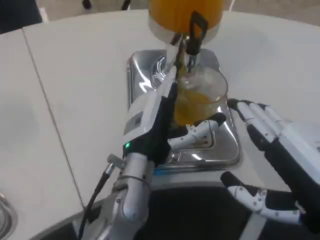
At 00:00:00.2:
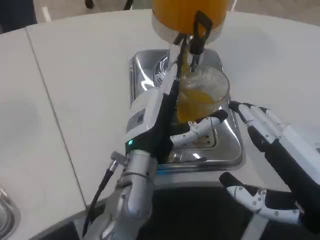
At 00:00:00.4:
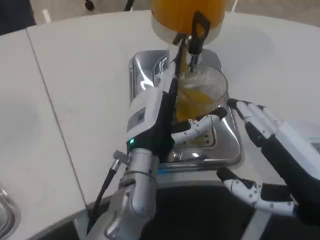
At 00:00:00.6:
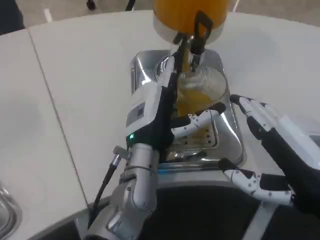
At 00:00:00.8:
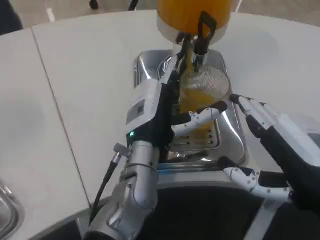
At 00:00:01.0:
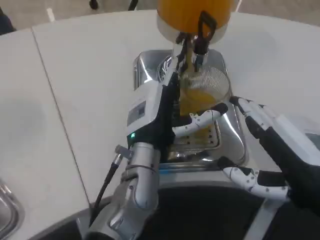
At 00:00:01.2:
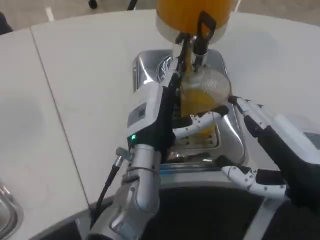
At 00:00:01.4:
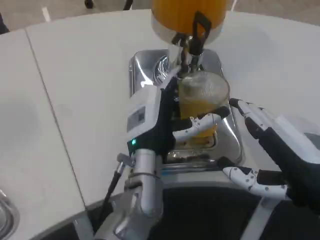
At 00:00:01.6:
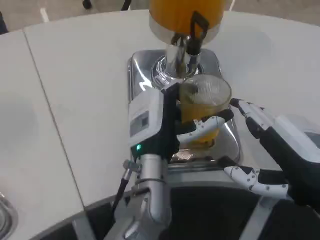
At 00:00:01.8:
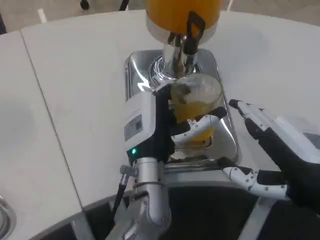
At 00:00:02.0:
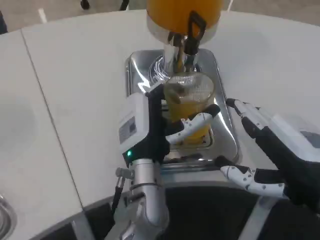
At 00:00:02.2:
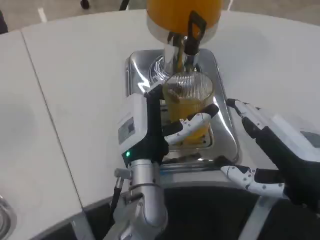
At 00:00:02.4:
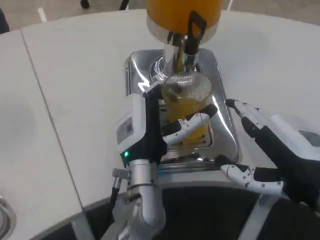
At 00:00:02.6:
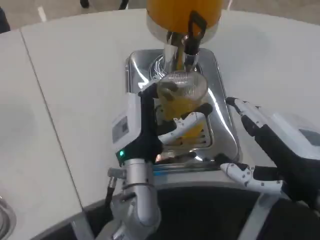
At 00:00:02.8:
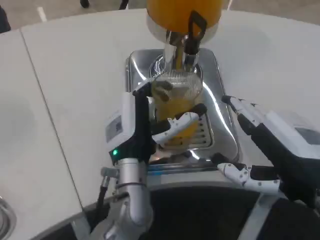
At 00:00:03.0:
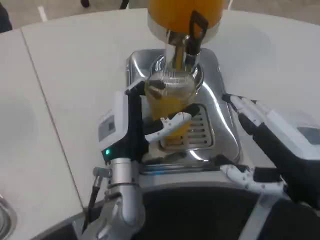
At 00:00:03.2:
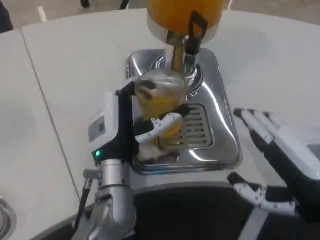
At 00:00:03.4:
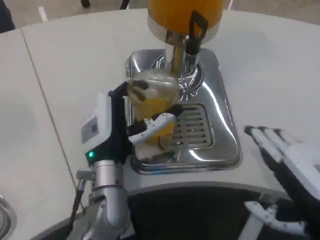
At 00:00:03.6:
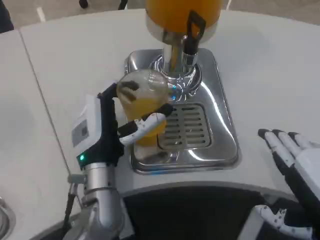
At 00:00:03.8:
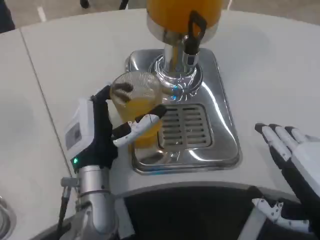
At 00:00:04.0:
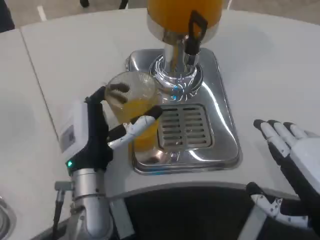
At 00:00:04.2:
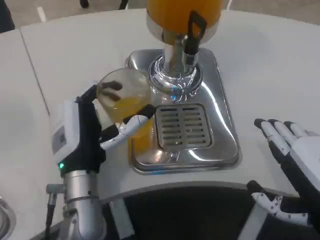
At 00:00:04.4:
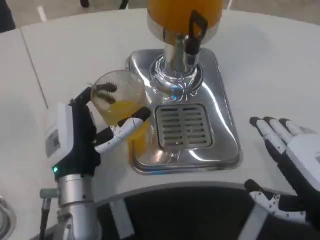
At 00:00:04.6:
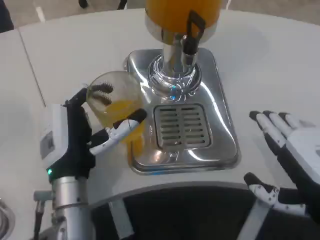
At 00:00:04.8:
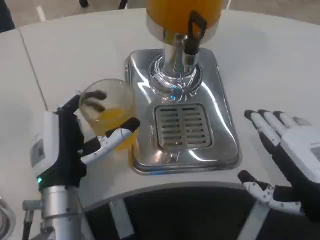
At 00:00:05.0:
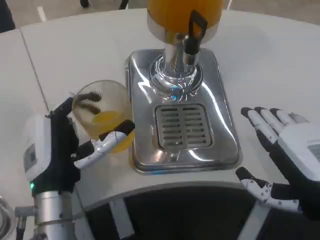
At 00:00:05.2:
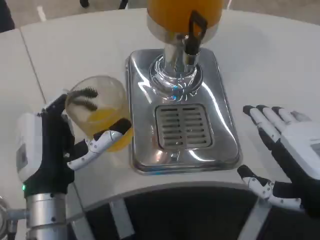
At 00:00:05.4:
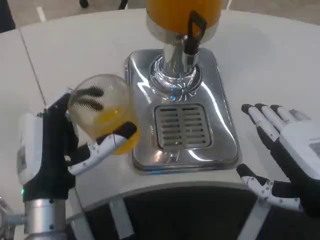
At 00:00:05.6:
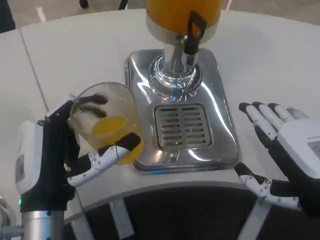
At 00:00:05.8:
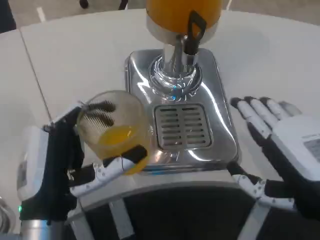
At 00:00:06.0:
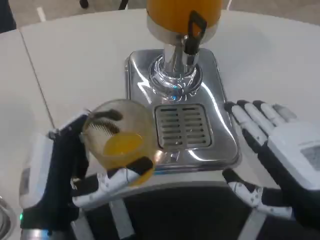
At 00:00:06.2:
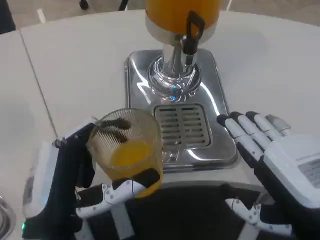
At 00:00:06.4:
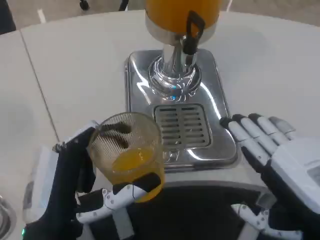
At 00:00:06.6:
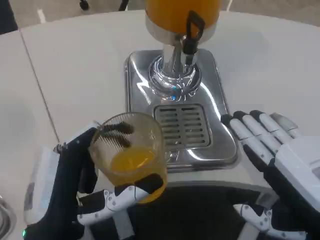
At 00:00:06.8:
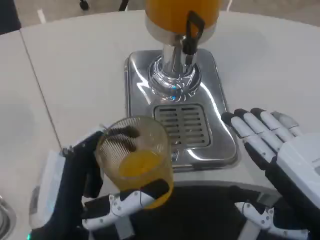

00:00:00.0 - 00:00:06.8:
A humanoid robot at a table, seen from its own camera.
Task of the whole recording: Grasp the cup under the faucet to collect the drink, then remove the cup.
00:00:00.0 - 00:00:01.4: The hands move only a little.
00:00:02.8 - 00:00:04.0: The left hand shifts some 5 cm to the left.
00:00:04.0 - 00:00:05.4: The left hand is displaced backward by roughly 5 cm.
00:00:05.4 - 00:00:06.8: The left hand travels backward by some 5 cm.

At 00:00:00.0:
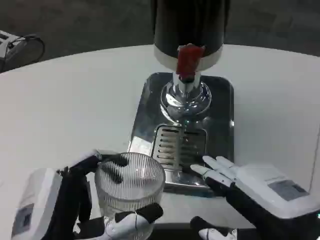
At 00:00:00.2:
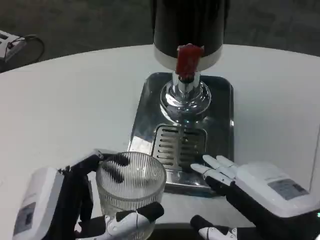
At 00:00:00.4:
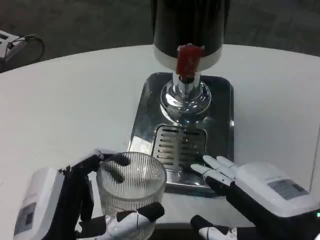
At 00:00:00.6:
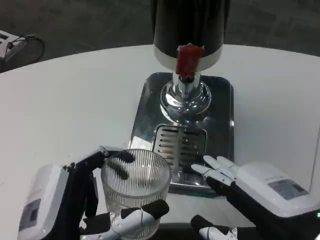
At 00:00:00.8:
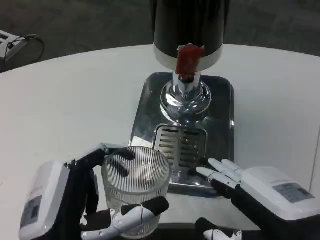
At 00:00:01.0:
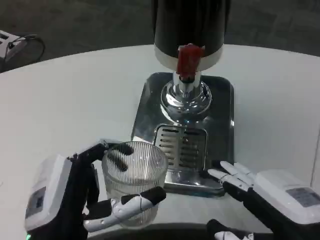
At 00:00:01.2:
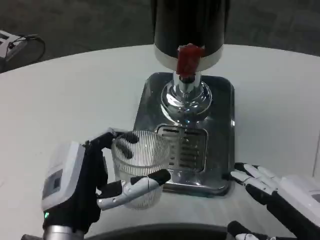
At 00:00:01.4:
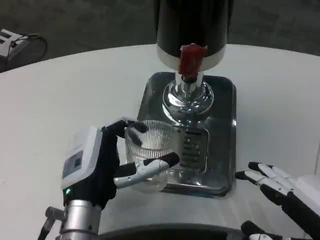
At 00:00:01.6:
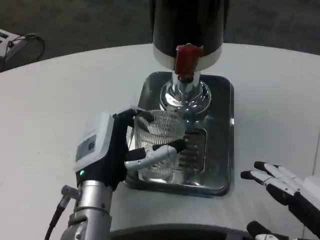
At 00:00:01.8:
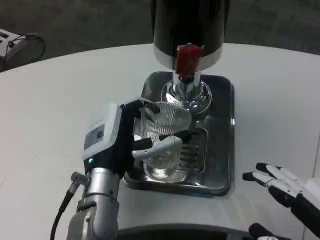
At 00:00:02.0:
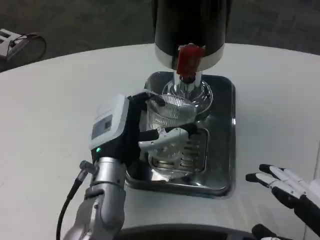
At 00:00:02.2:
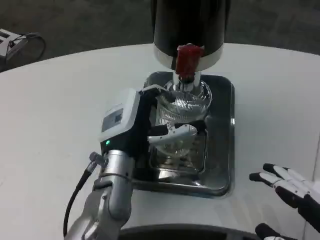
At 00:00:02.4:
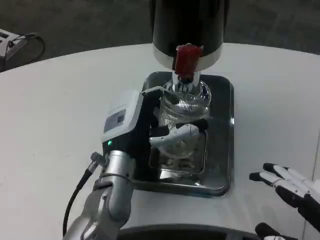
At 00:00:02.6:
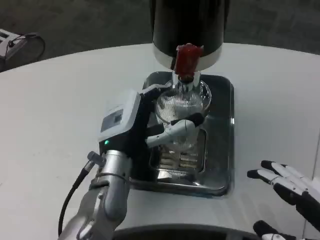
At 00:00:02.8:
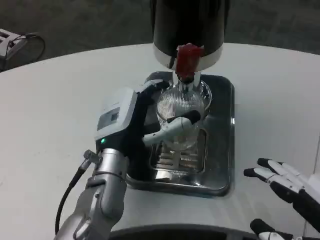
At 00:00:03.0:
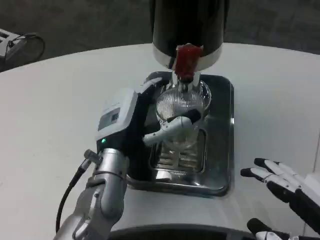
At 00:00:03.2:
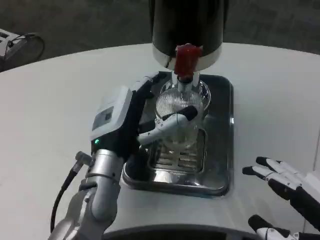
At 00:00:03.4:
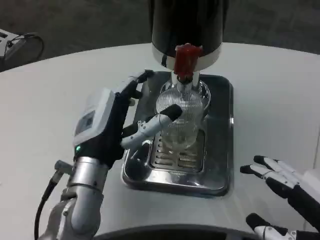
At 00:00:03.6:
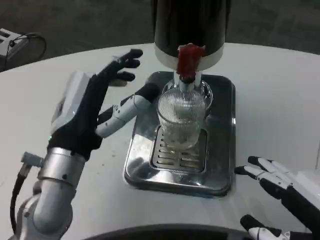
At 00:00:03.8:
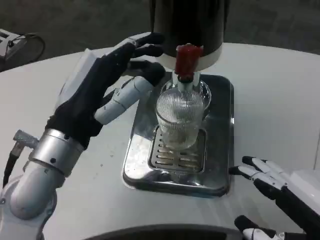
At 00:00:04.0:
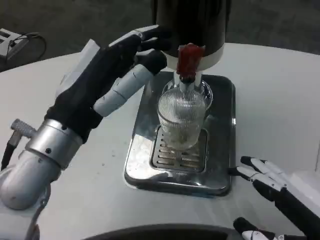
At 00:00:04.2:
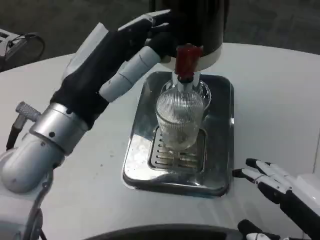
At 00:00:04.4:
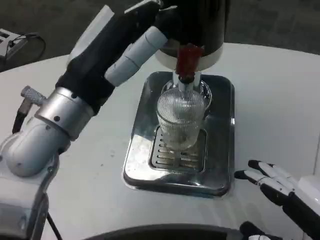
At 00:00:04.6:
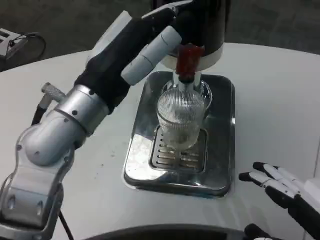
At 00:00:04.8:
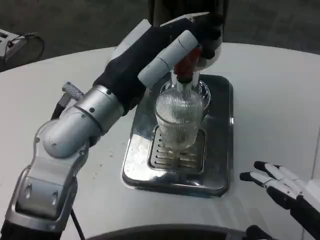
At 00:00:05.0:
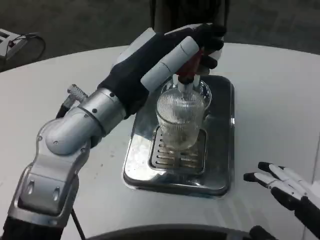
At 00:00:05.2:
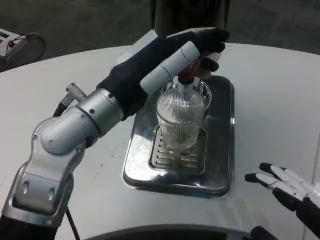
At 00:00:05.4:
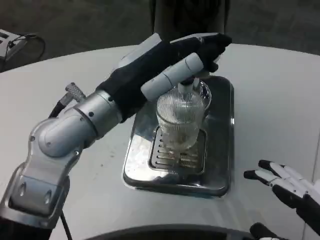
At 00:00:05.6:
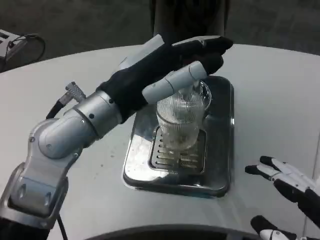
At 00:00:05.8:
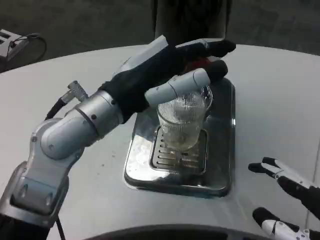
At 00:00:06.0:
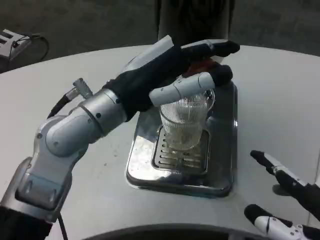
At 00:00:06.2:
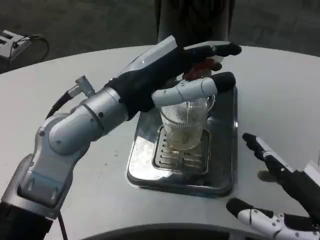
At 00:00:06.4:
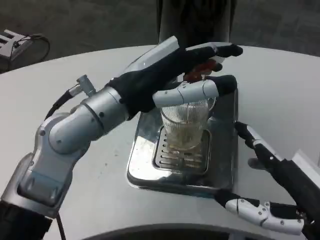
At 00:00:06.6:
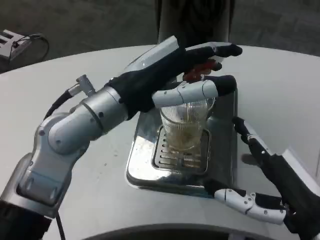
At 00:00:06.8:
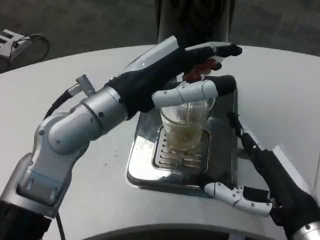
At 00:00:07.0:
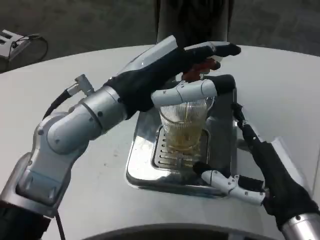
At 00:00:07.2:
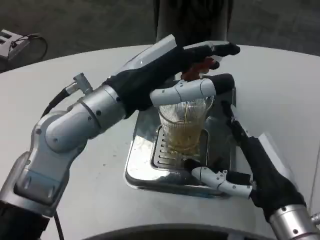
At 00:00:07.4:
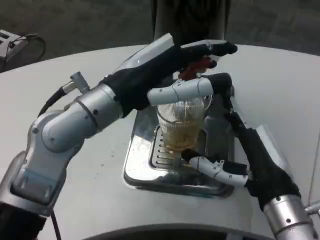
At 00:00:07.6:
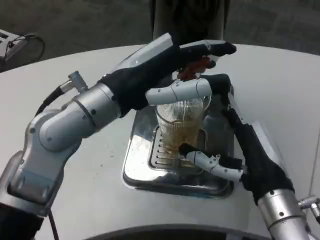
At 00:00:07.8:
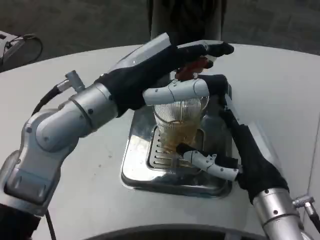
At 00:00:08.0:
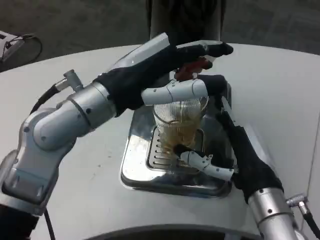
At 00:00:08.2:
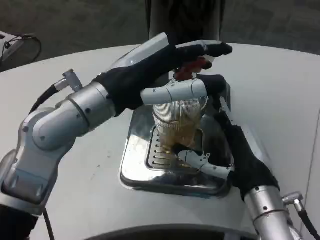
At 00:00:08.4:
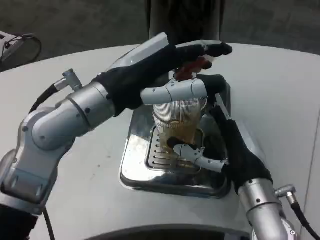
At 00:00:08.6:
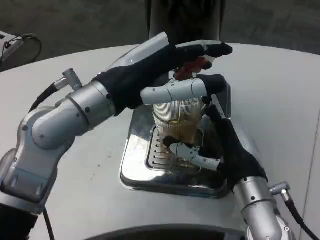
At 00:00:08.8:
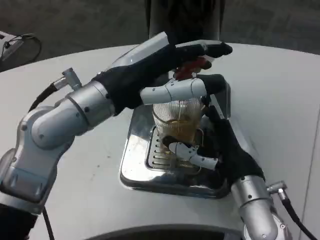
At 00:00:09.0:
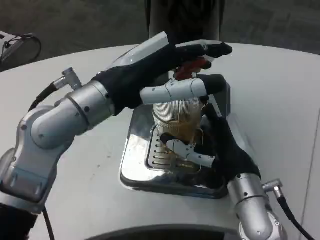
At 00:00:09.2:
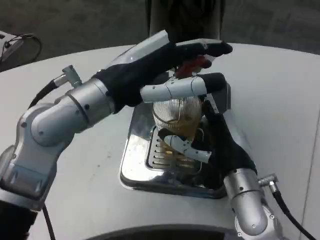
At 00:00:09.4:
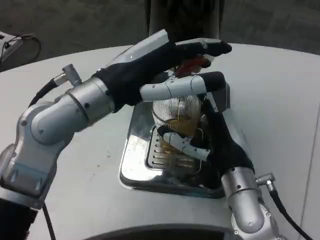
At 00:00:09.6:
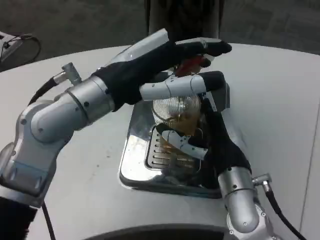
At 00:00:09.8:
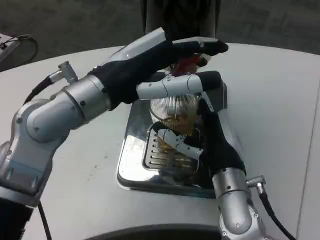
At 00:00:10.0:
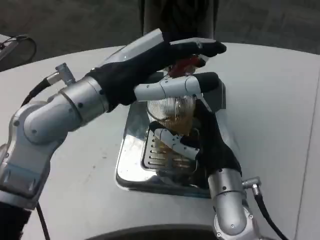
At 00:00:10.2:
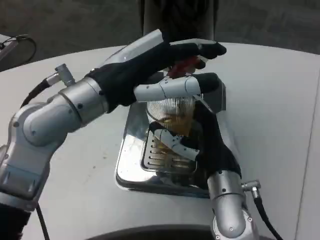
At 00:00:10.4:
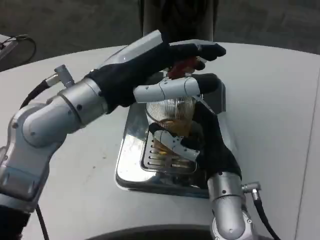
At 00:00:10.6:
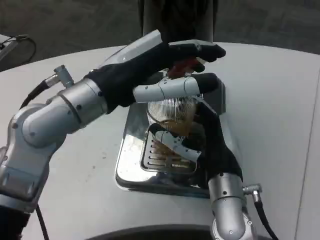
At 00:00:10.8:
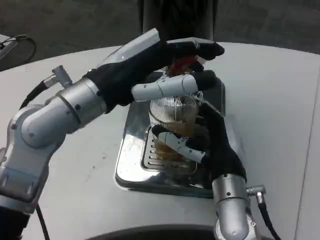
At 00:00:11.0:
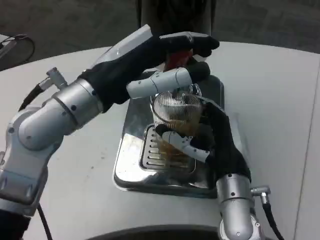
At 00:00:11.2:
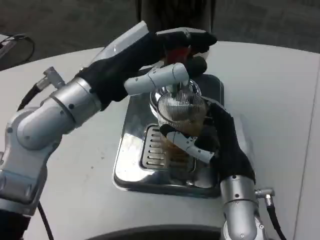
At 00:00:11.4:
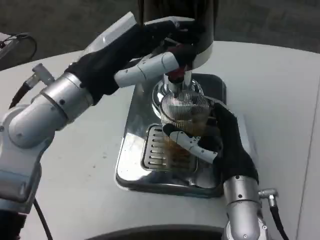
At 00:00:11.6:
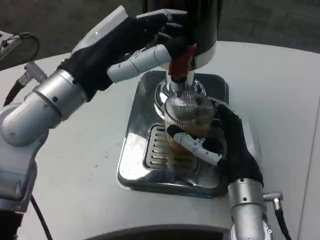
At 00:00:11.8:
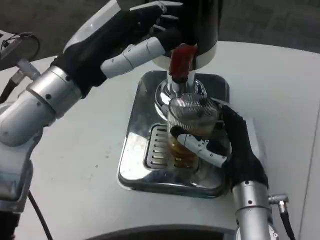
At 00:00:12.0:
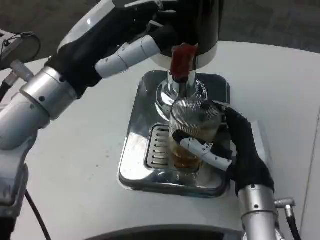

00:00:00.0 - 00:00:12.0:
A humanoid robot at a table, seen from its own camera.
Task of the whole recording: Grasp the cup under the faucet to collect the drink, then remove the cup.
00:00:00.0 - 00:00:01.6: The right hand ends up about 5 cm from where it was; the left hand moves forward, some 15 cm.
00:00:01.6 - 00:00:03.0: The left hand ends up some 5 cm from where it was.
00:00:03.0 - 00:00:04.4: The left hand goes some 15 cm upward and backward.
00:00:06.0 - 00:00:07.6: The right hand is displaced forward and to the left by some 15 cm.
00:00:07.6 - 00:00:09.0: The right hand changes place by some 5 cm.

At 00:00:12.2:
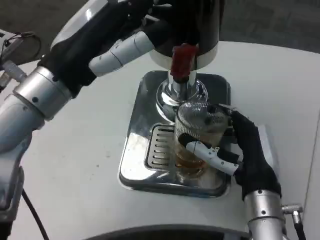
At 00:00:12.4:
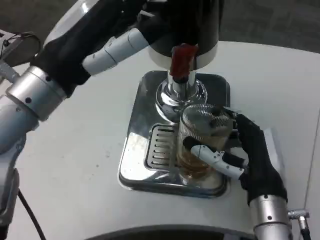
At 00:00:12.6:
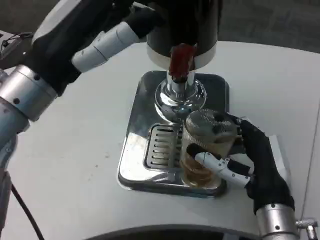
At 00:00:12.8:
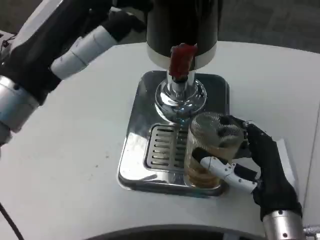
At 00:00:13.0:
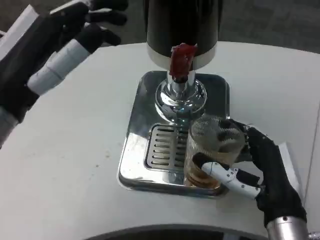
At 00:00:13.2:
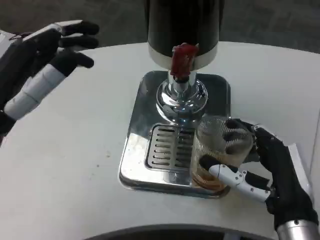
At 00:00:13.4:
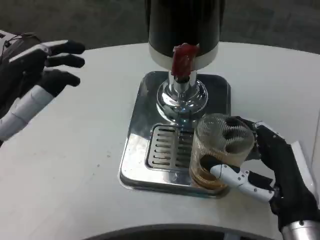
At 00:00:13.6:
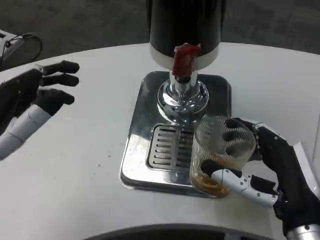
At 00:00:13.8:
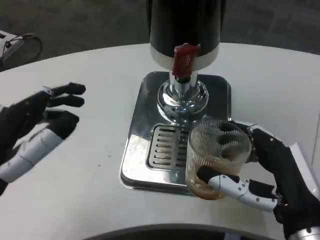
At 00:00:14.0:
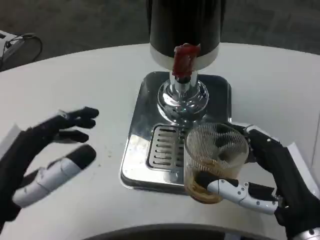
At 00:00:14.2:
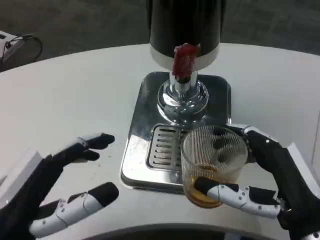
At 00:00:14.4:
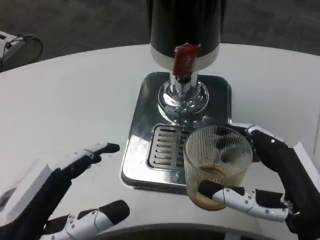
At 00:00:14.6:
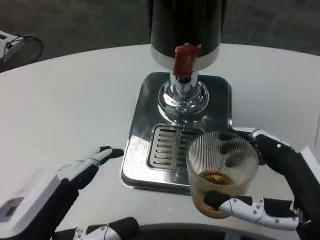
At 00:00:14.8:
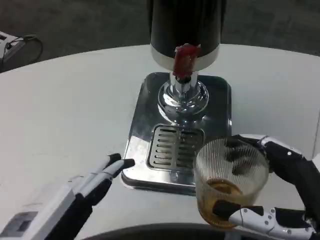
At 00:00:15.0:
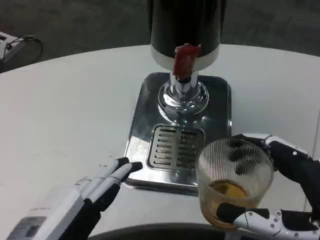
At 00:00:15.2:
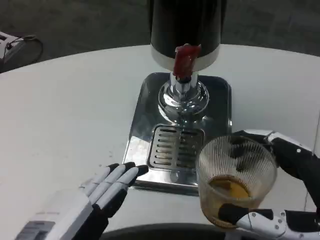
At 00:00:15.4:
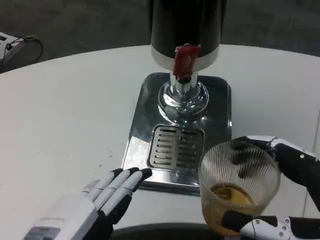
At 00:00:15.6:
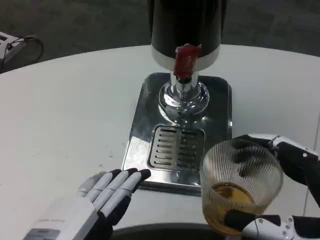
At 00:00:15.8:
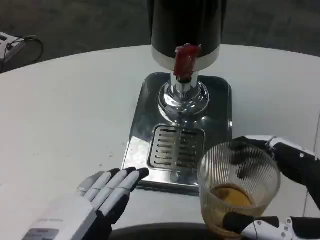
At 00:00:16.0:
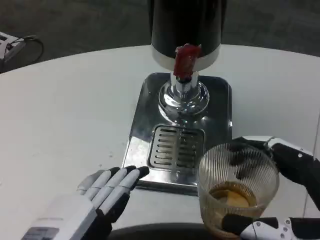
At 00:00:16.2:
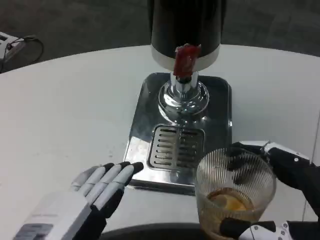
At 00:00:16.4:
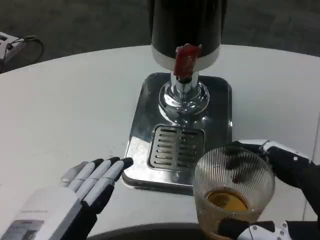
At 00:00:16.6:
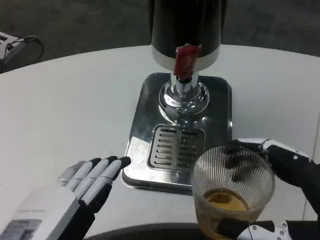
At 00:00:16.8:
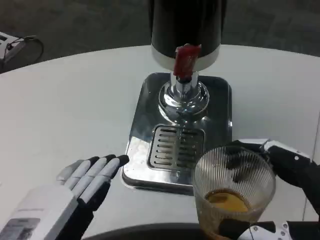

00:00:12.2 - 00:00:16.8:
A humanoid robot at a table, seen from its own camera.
Task of the whole recording: Grasp the cup under the faucet to collect the drink, then remove the cup.
00:00:12.2 - 00:00:13.8: The left hand heads backward, downward and to the left, covering some 15 cm, while the right hand is displaced backward by approximately 5 cm.
00:00:13.8 - 00:00:15.2: The right hand moves backward, some 5 cm. The left hand moves backward and to the right, approximately 10 cm.
00:00:15.2 - 00:00:16.8: There are only small adjustments of the hands.
